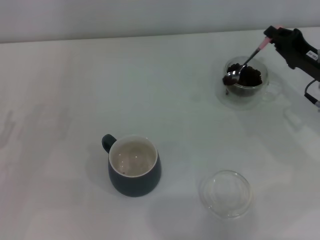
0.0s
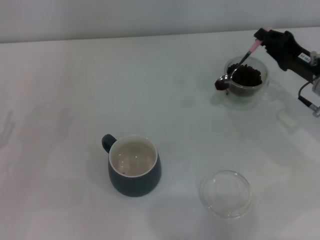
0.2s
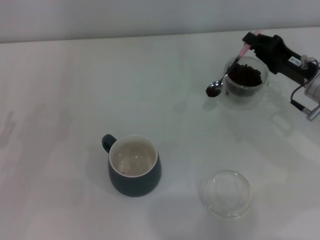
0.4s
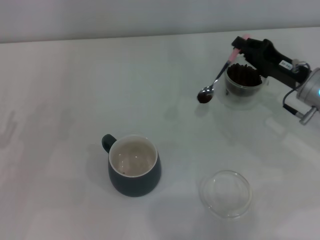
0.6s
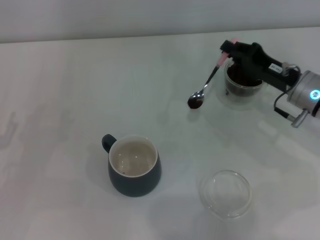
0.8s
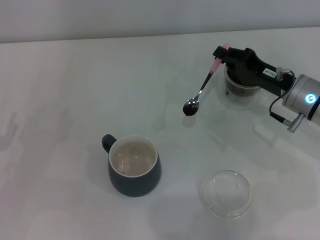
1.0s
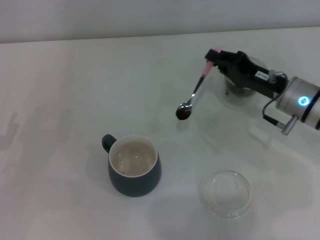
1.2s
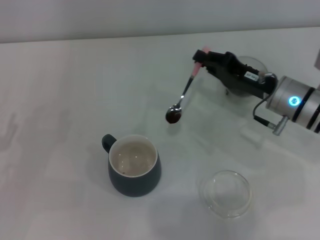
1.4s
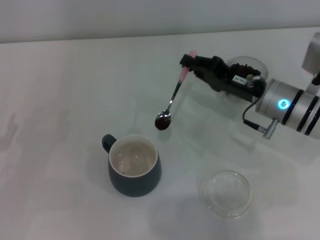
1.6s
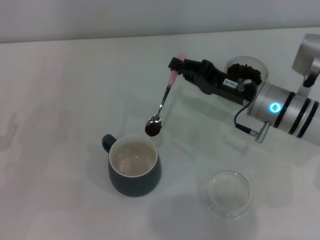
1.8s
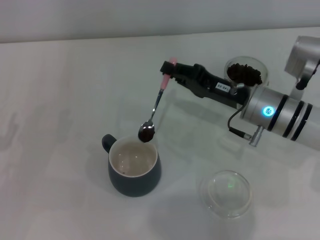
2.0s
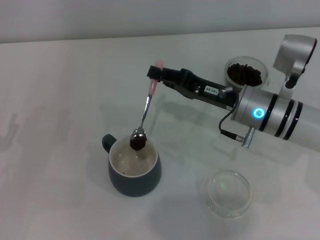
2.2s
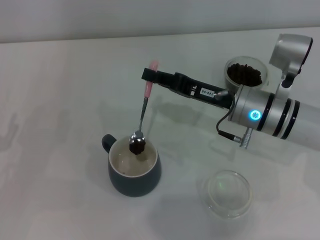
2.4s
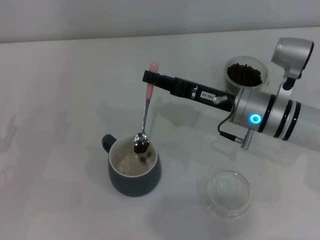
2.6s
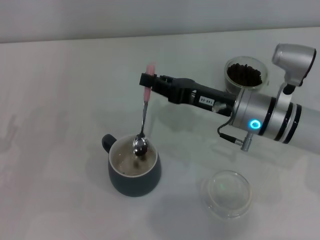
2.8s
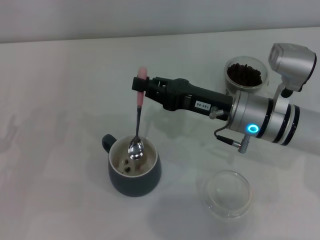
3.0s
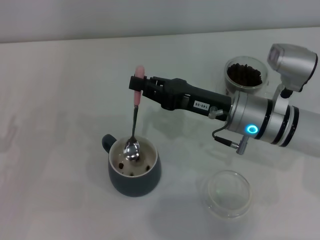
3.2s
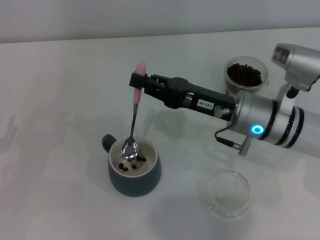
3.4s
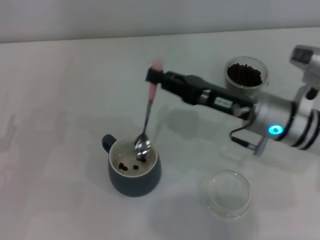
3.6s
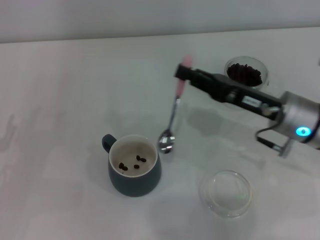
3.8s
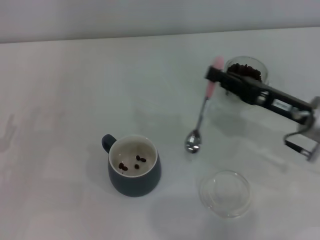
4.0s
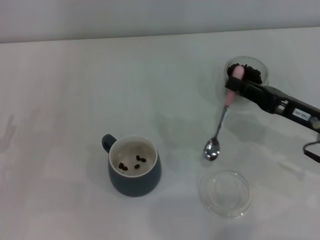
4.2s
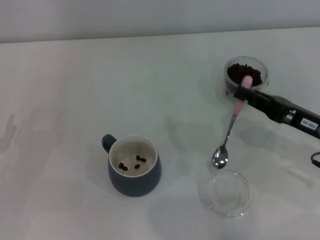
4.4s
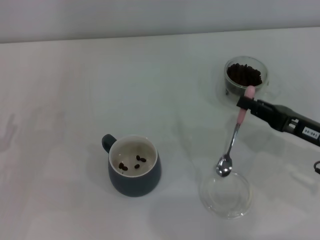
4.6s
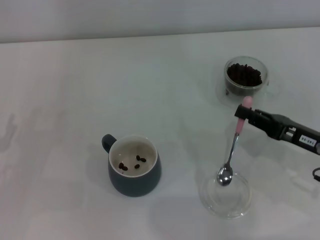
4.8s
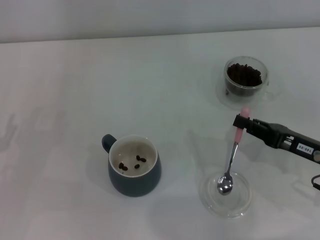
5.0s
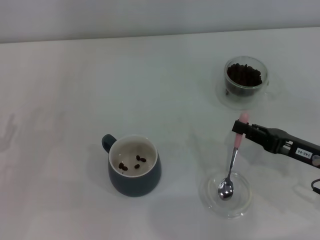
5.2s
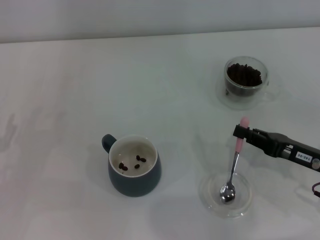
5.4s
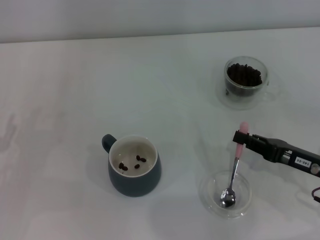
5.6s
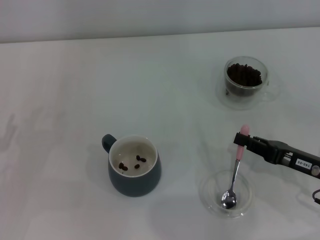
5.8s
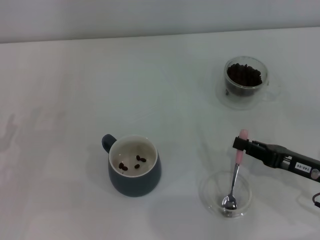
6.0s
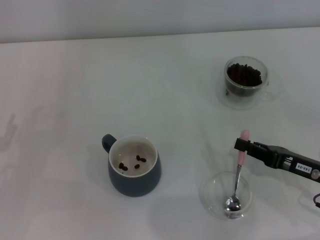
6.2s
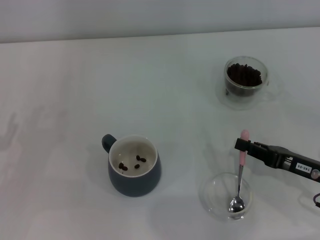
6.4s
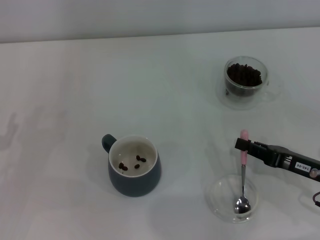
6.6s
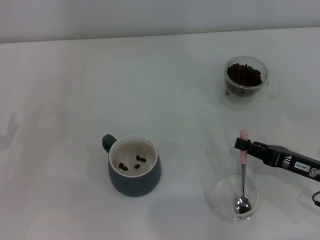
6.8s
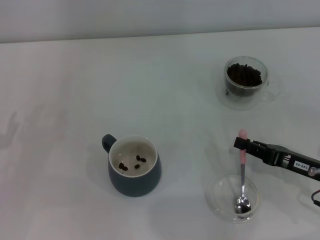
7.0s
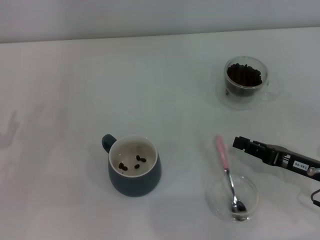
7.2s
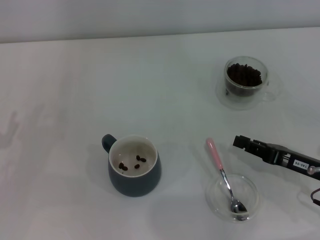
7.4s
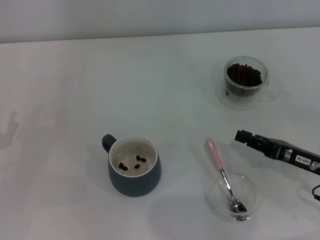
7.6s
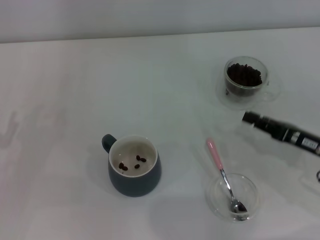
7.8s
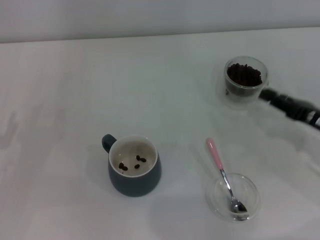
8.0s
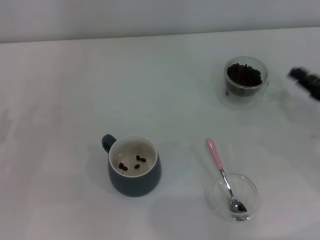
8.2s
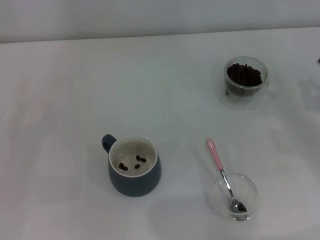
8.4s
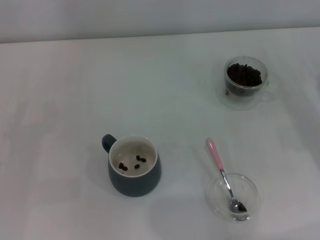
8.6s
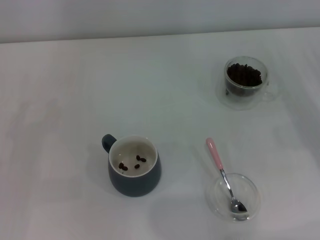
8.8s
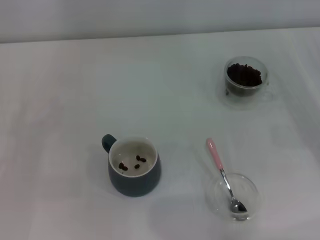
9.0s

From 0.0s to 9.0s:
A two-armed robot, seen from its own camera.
Task of the whole recording: Use a pink spoon to take out the coffee beans from the glass and pour them into the gray cup.
Step, from 0.0s to 3.6s: Scoop a spoonful of beans into the cup with the right gripper.
Step, from 3.8s to 7.4s: Place the spoon back in its original place with the right gripper.
From 0.0s to 1.6s: The right gripper heads to the left, covering some 10 cm.
From 1.6s to 3.0s: The right gripper travels to the left by roughly 5 cm.
From 3.0s to 4.4s: The right gripper heads to the right and backward, covering approximately 15 cm.
From 4.4s to 6.0s: The right gripper moves roughly 5 cm.
From 6.0s to 7.6s: Both grippers stay put.
From 7.6s to 9.0s: The right gripper heads to the right and forward, covering roughly 10 cm.

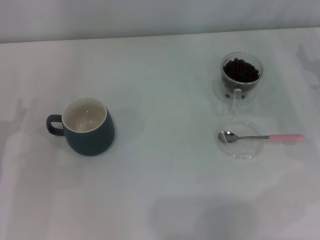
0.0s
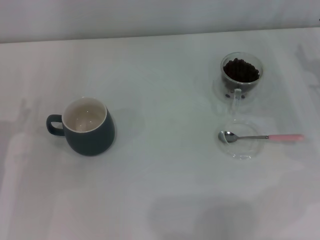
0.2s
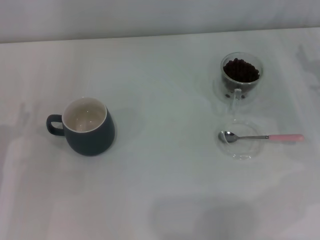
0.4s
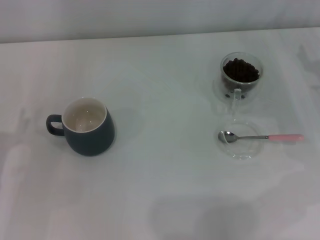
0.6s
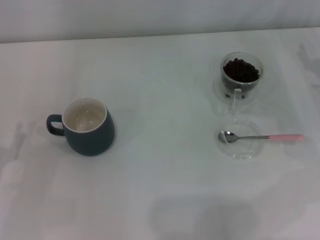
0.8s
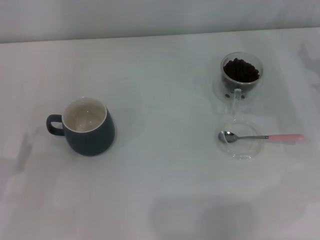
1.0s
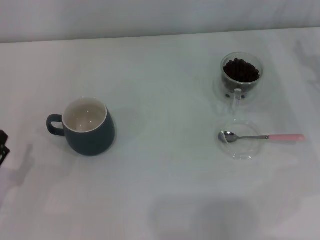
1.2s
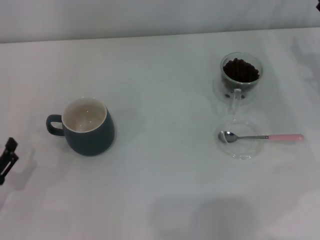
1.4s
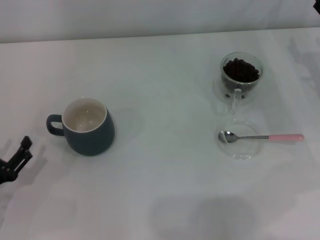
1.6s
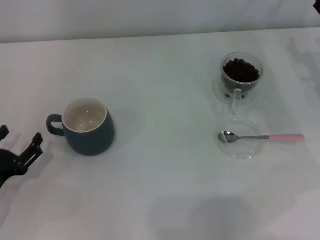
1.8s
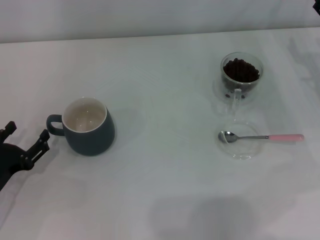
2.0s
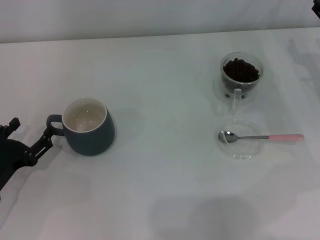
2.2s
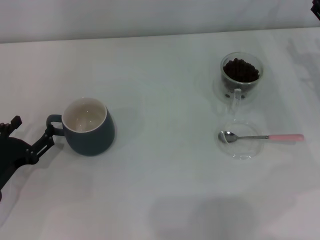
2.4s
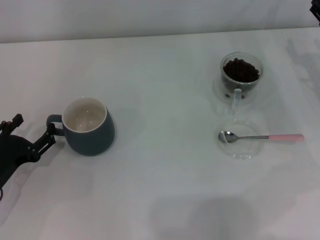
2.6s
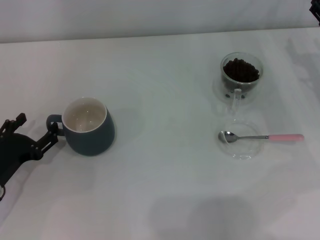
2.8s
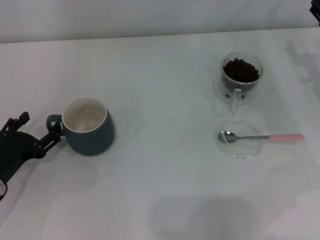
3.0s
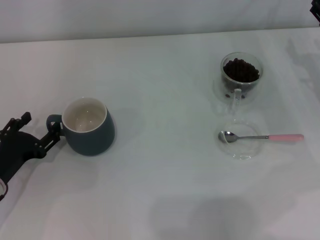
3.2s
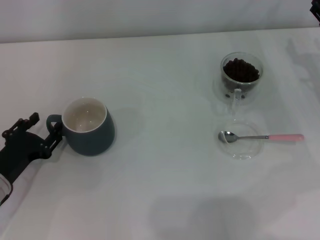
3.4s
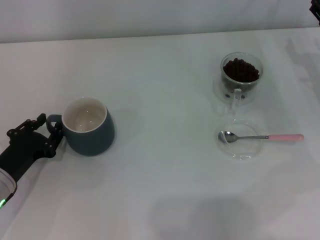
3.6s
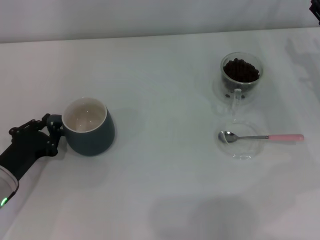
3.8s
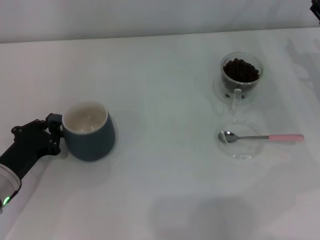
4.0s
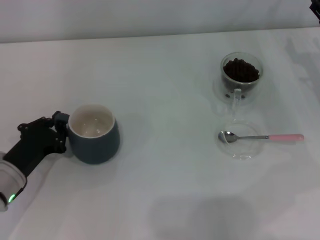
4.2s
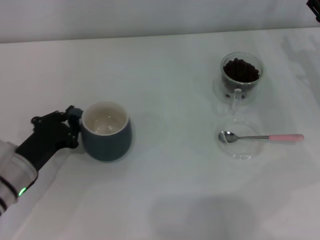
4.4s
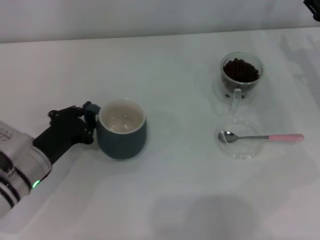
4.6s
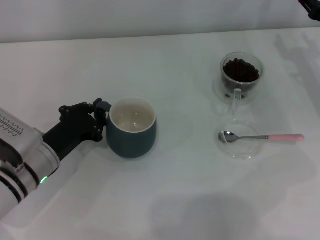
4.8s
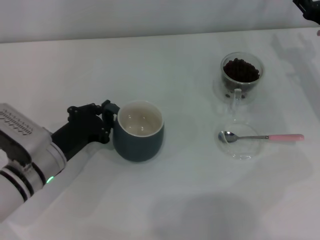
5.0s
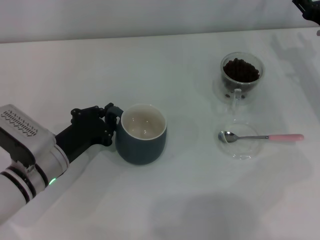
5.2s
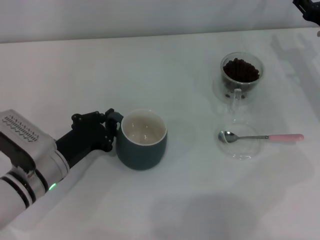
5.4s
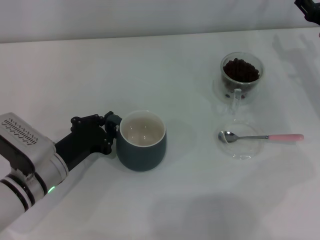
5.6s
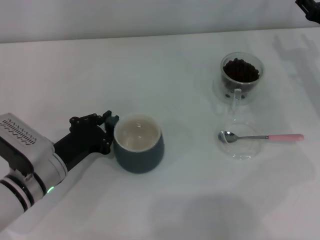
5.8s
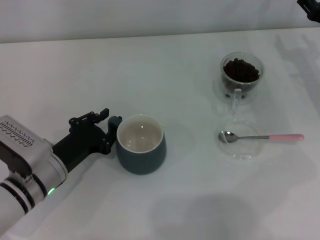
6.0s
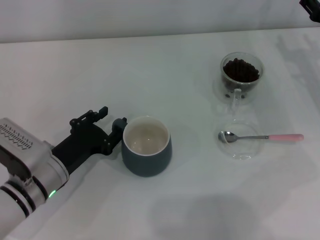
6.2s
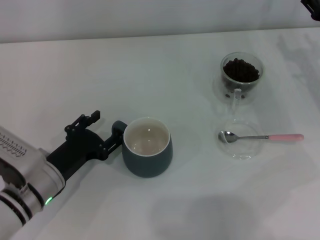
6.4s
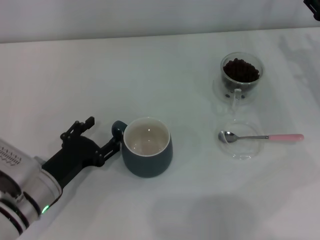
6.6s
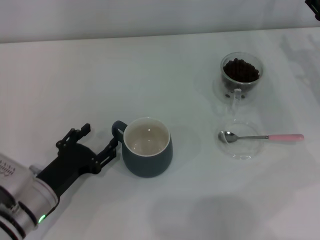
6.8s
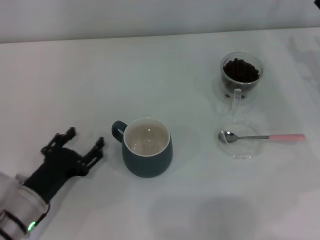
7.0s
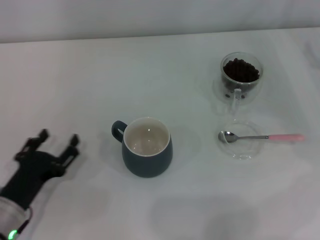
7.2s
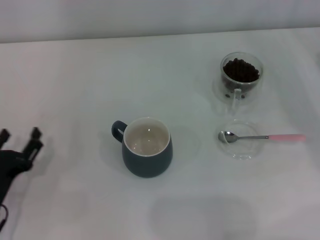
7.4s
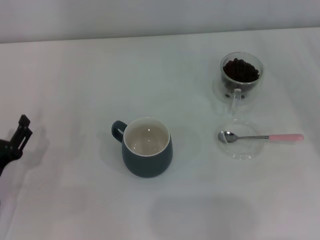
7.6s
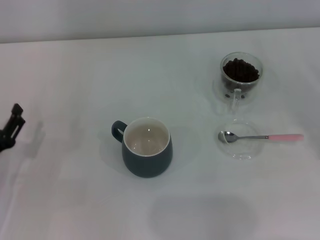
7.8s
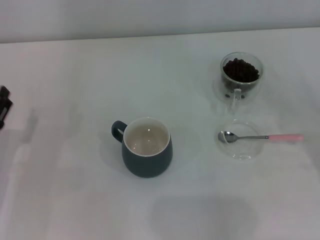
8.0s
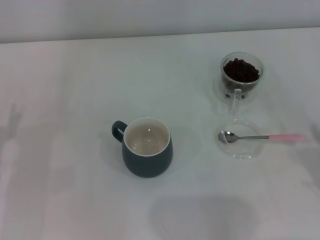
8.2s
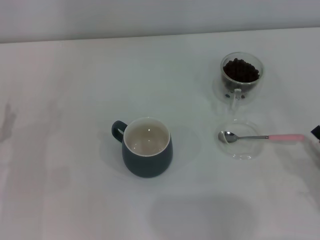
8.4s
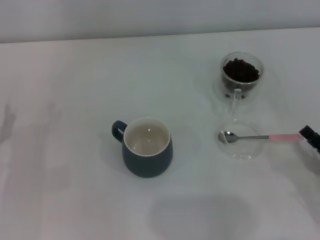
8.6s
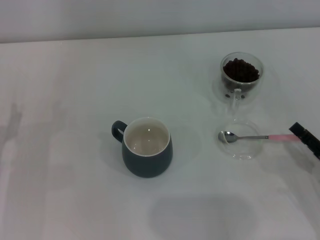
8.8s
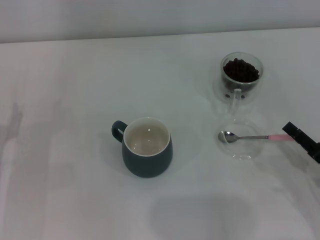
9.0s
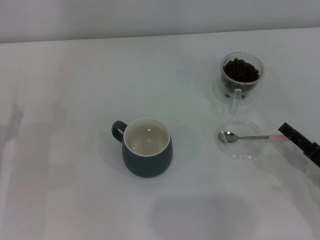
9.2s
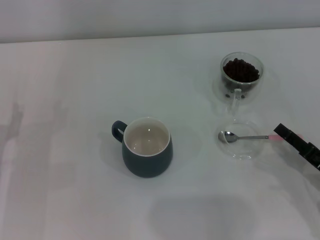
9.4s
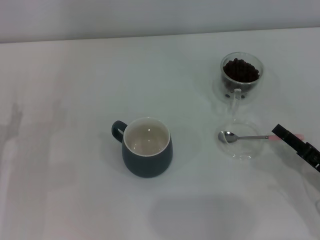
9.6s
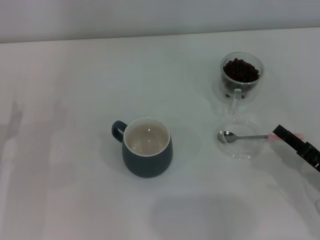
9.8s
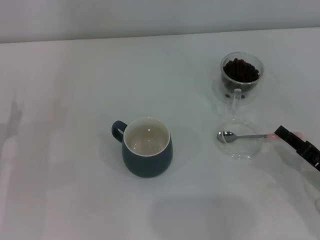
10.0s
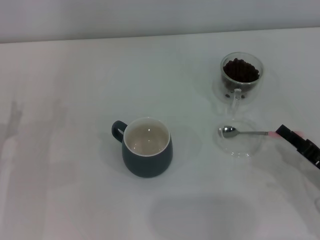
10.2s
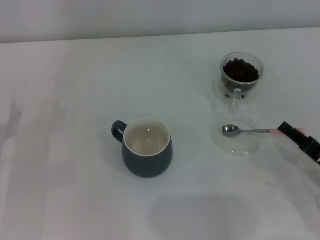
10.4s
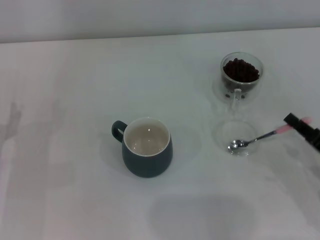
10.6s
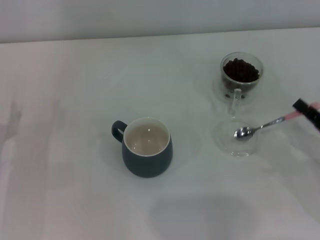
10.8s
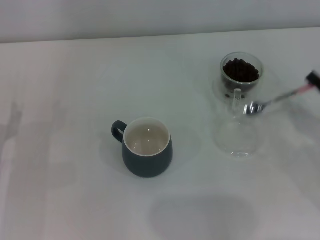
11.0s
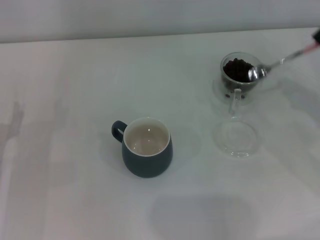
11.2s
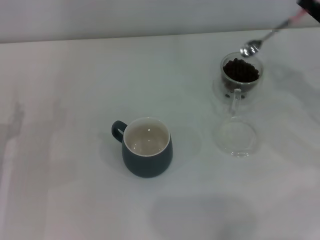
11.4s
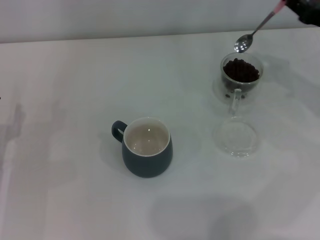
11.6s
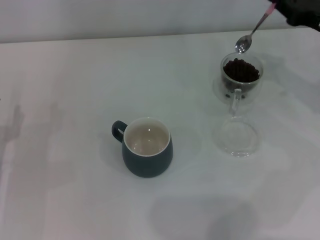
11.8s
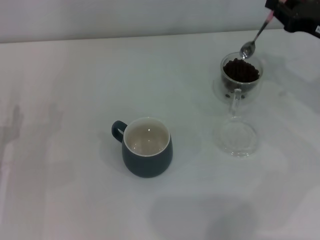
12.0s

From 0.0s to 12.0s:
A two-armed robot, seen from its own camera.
Task of the whole recording: Use a pink spoon to take out the coffee beans from the glass and pour them into the gray cup.
Step, from 0.0s to 7.0s: Move the cup to the center of view with the left gripper.
Step, from 7.2s to 10.8s: Pick up the spoon with the right gripper.
From 0.0s to 1.6s: The left gripper is displaced backward by about 5 cm.
From 1.6s to 3.0s: The left gripper heads forward, covering approximately 5 cm.
From 3.0s to 4.4s: The left gripper closes its fingers.
From 4.4s to 6.0s: The grippers move only a little.
From 6.0s to 7.6s: The right gripper travels backward and to the right by roughly 15 cm. The left gripper heads to the left and backward, covering approximately 10 cm, and opens.
From 7.6s to 9.0s: The left gripper changes place by approximately 5 cm; the right gripper heads to the left, backward and downward, covering approximately 15 cm.
From 9.0s to 10.4s: The right gripper closes its fingers.
From 10.4s to 12.0s: The right gripper goes roughly 20 cm forward and upward.

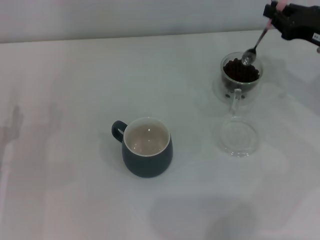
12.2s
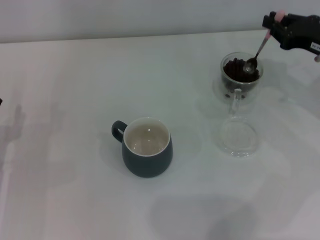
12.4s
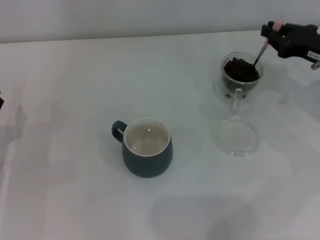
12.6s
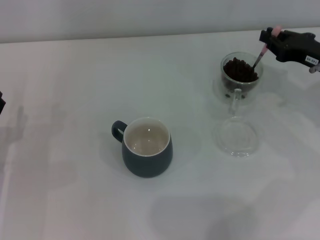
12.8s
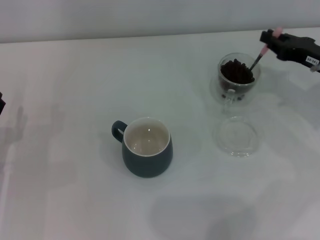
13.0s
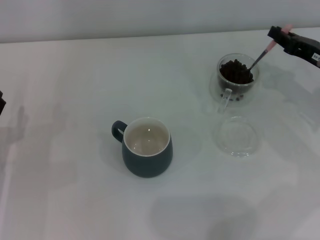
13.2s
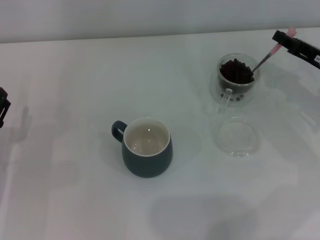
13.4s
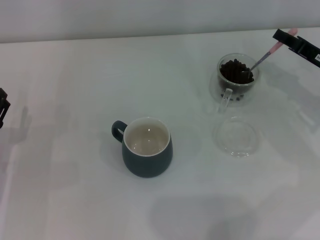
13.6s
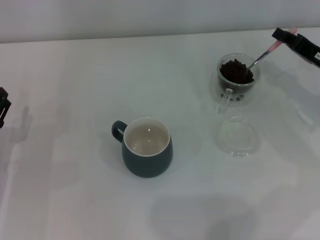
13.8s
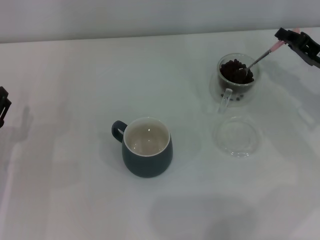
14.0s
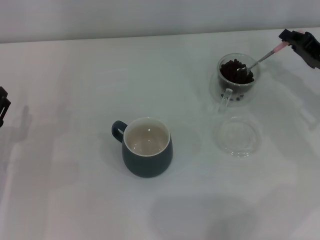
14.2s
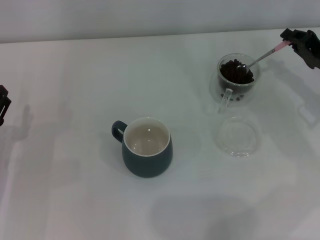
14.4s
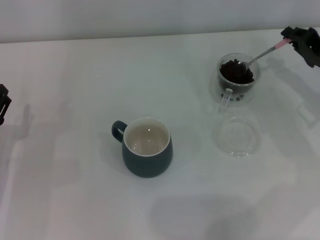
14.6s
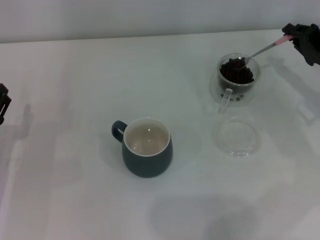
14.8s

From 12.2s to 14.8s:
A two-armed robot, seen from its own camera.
Task of the whole recording: Use a pink spoon to take out the coffee beans from the glass and pour them into the gray cup.
From 12.2s to 13.4s: The right gripper moves about 5 cm.
